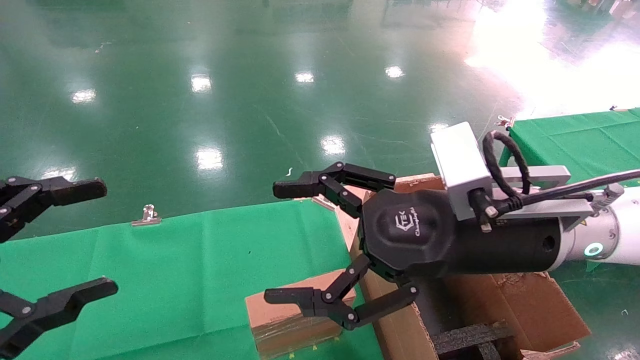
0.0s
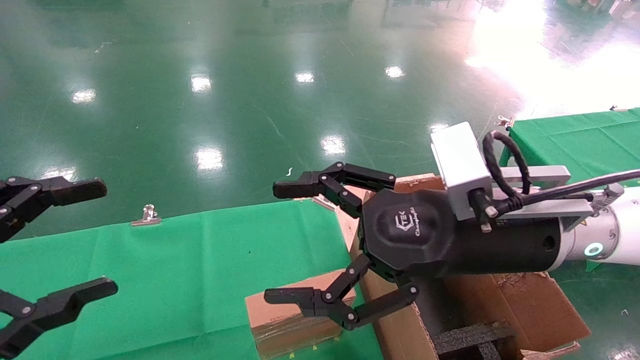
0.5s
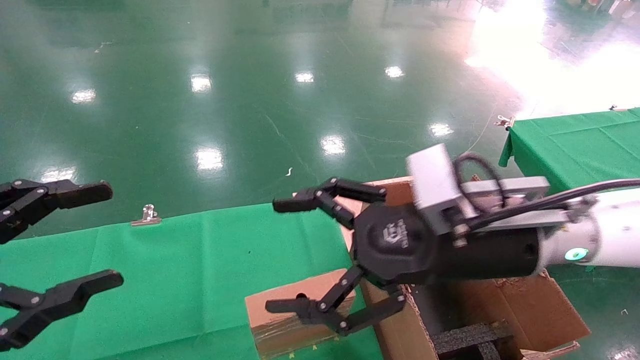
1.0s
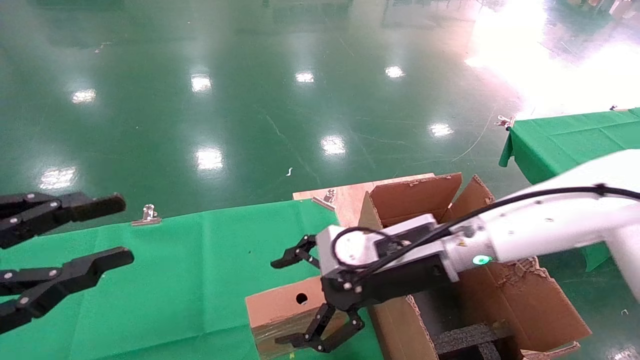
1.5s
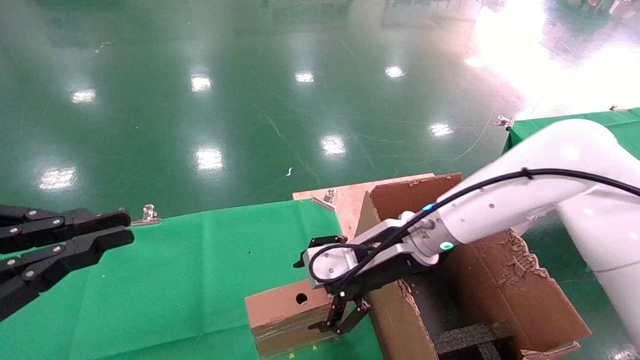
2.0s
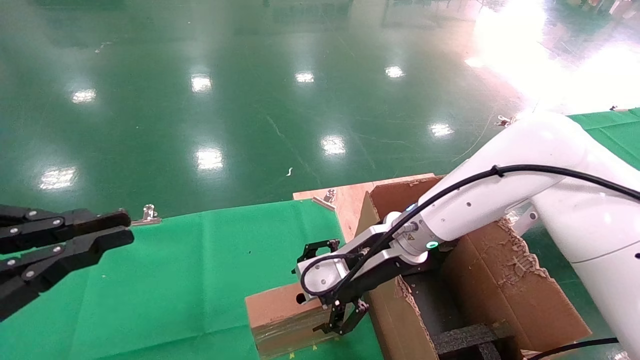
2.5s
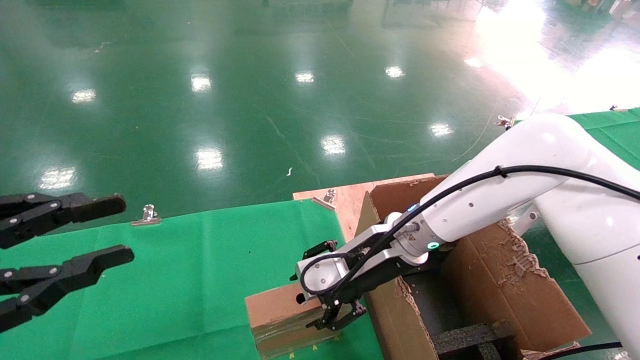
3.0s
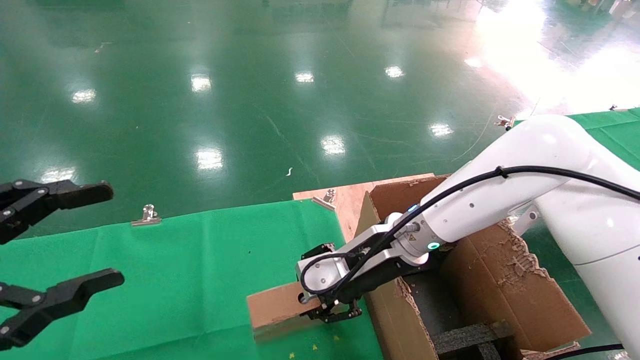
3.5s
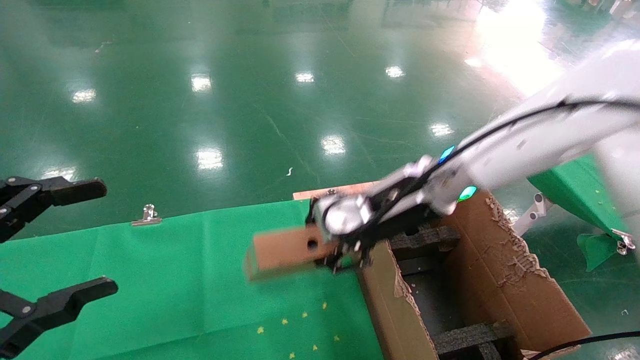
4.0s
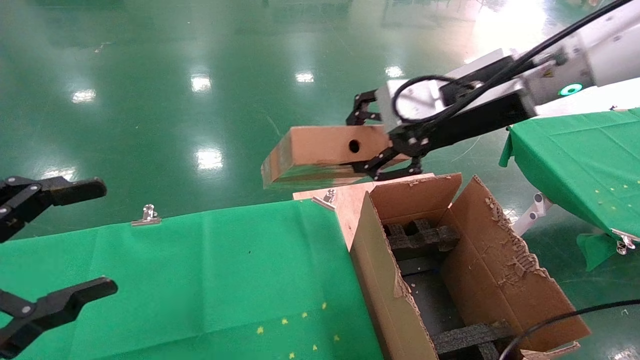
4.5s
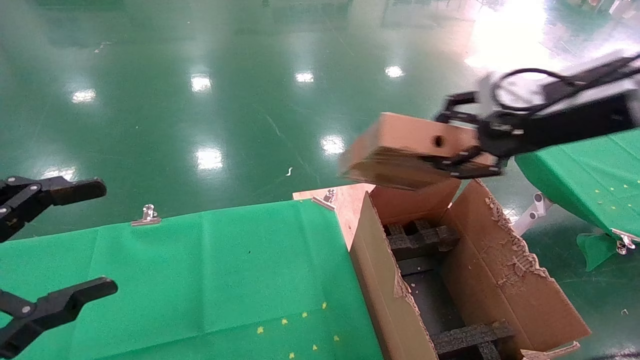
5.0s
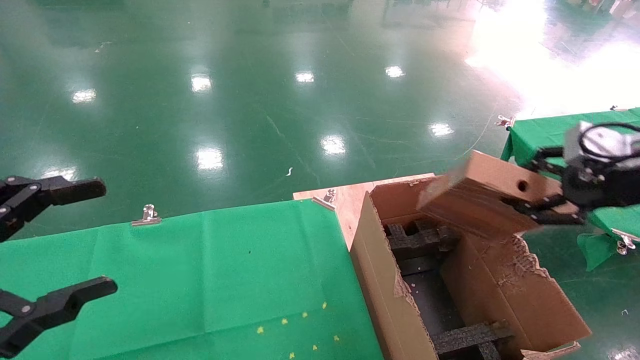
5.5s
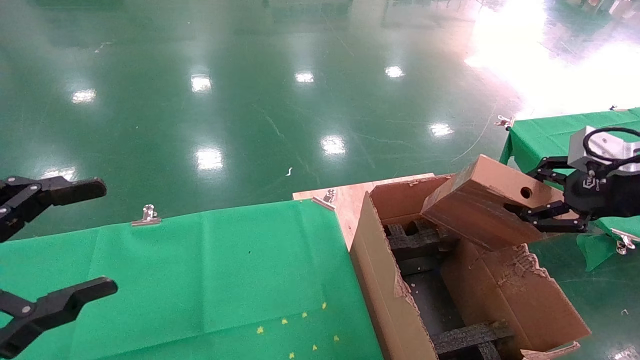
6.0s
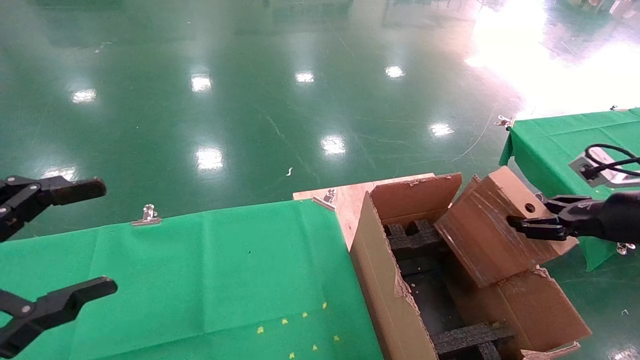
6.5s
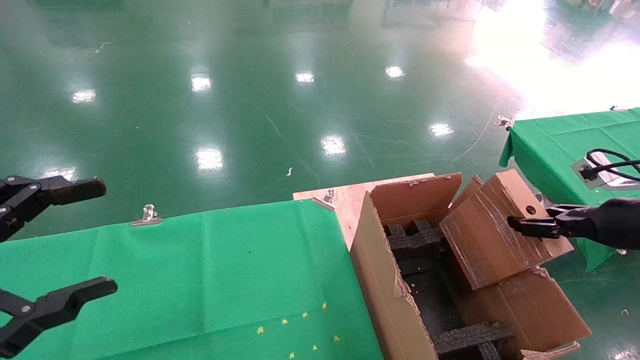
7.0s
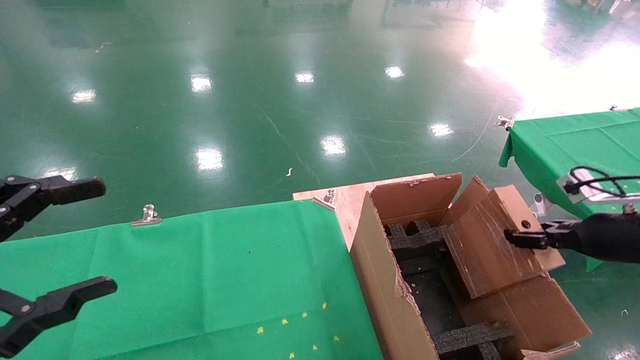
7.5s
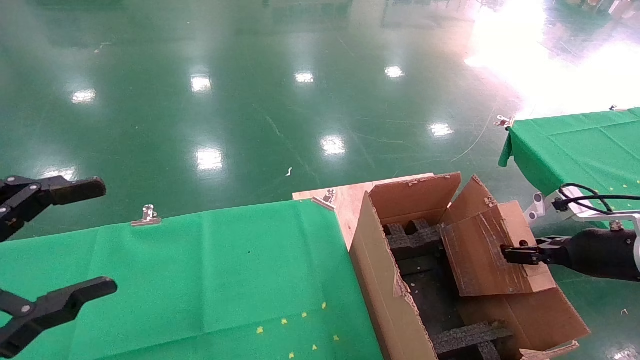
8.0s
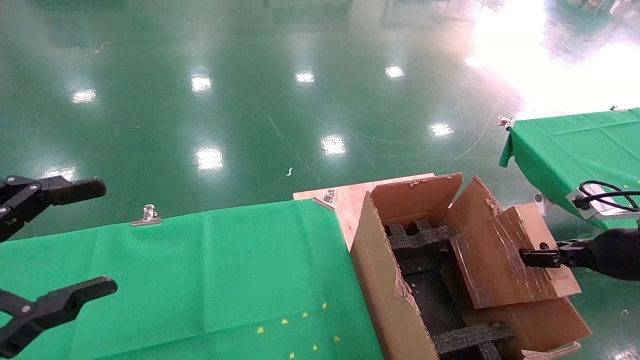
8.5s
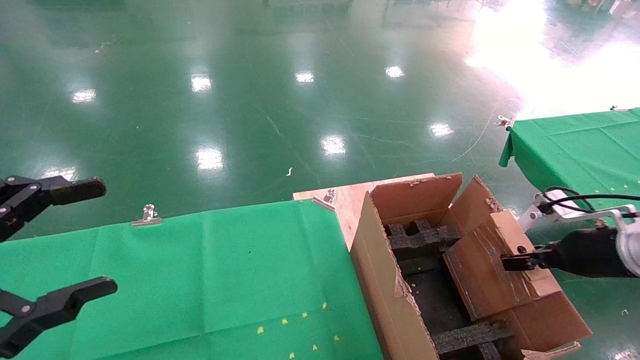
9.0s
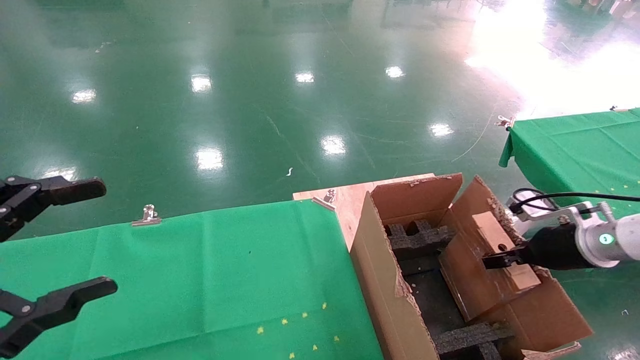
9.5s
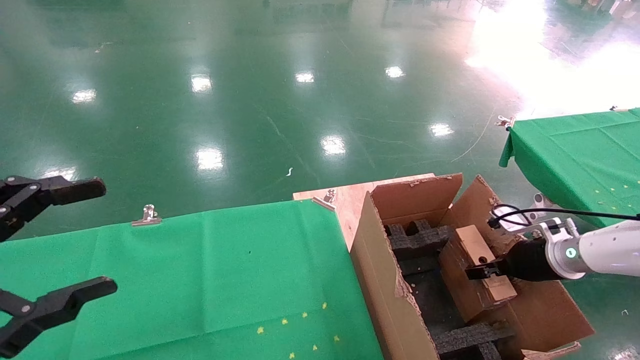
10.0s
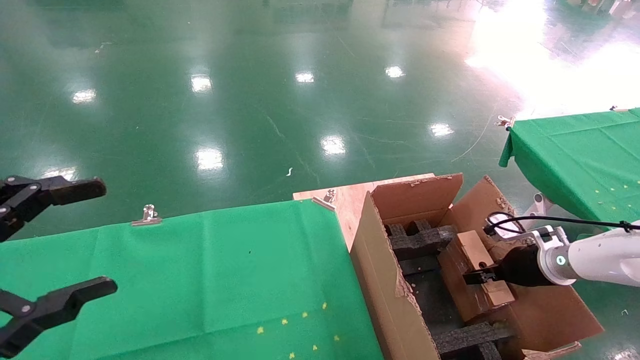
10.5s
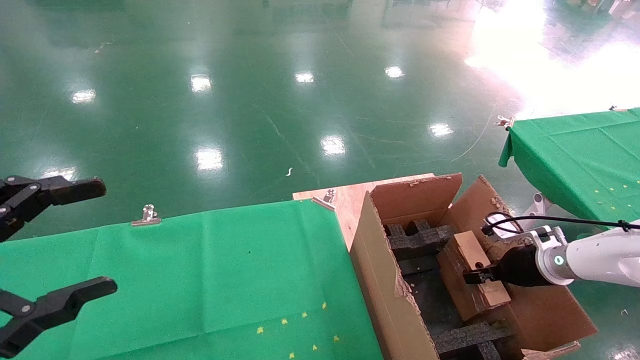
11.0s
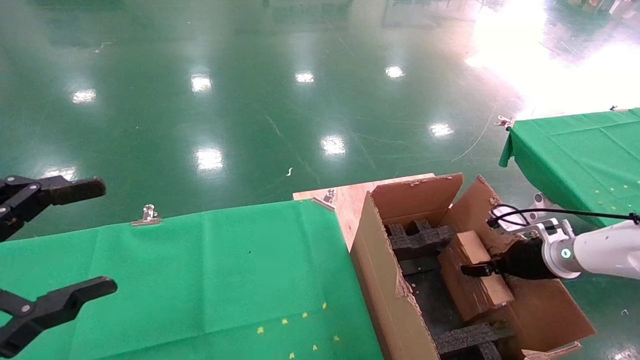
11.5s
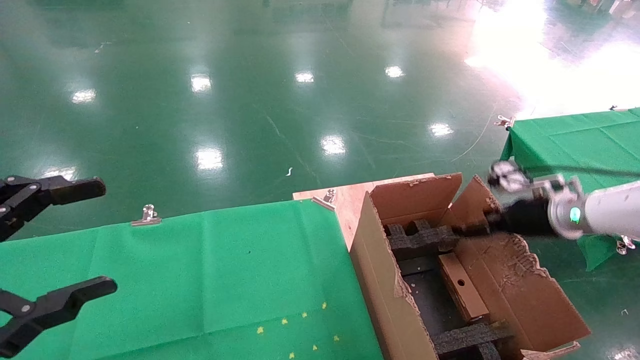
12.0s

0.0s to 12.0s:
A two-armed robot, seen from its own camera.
Task of the whole recording: using a robotic arm to pick up a cardboard box and palace it the carton.
Step, 1.5s to 3.5s: Pick up the mouse and the power cord paper box.
0.0s to 2.0s: The right gripper travels forward and downward by some 15 cm. Meanwhile the left gripper closes.
2.0s to 4.0s: The left gripper opens up. Meanwhile the right gripper shifts roughly 10 cm upward, and closes its fingers.
4.0s to 6.0s: The right gripper moves to the right, roughly 30 cm.
6.0s to 8.0s: The right gripper shifts some 15 cm downward.
8.0s to 10.0s: The right gripper goes about 10 cm forward and downward.
10.0s to 12.0s: The right gripper heads upward, covering approximately 10 cm, and opens up.

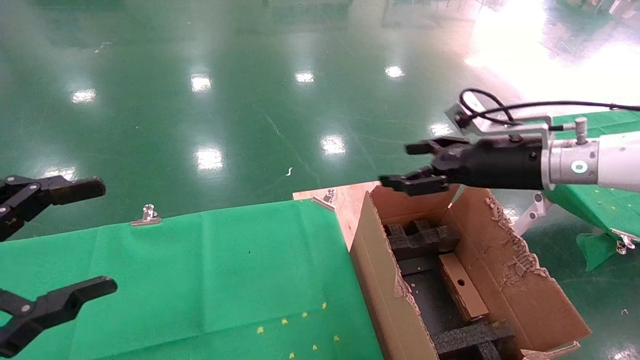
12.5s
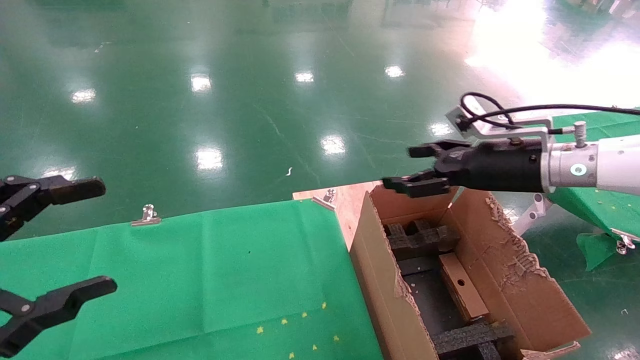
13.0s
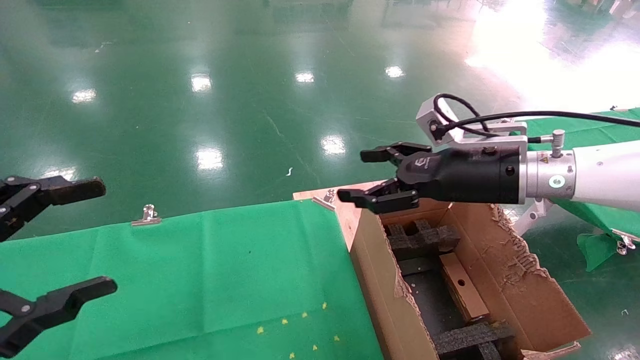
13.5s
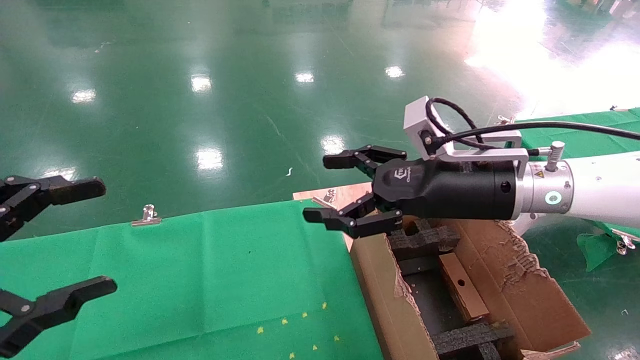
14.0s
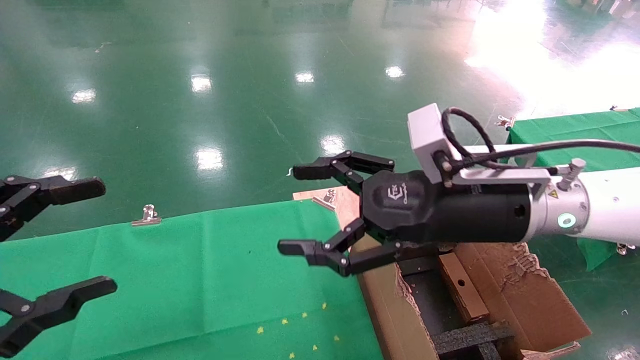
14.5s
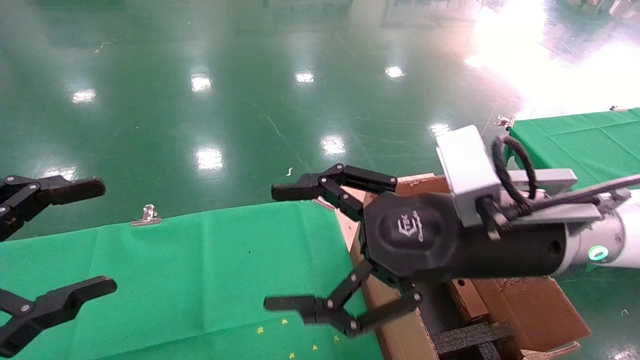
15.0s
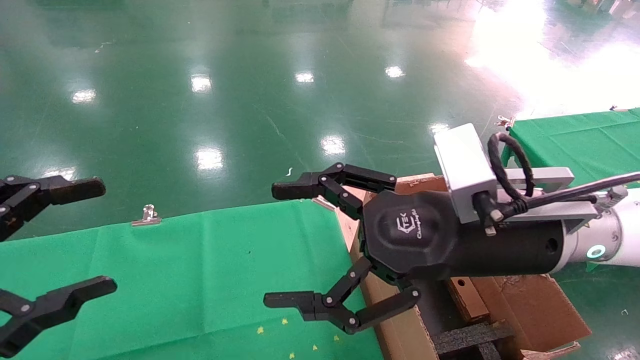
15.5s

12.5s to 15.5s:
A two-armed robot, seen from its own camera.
Task of the whole recording: using a robotic arm to pick up a cardboard box and palace it the carton.
12.5s to 14.0s: The right gripper moves to the left and backward, roughly 15 cm.
14.0s to 15.5s: The right gripper heads backward, covering roughly 10 cm.
